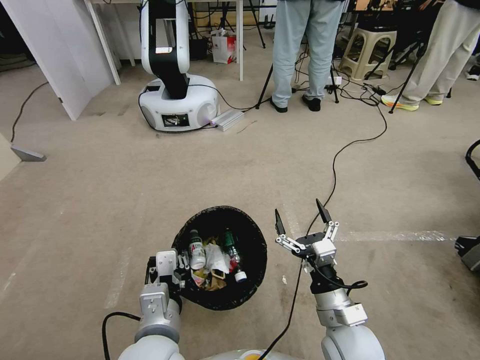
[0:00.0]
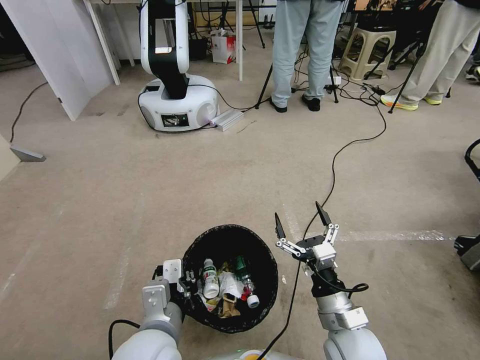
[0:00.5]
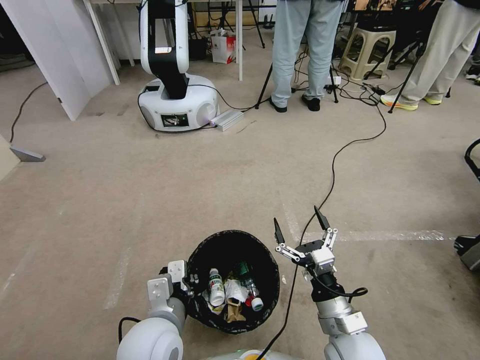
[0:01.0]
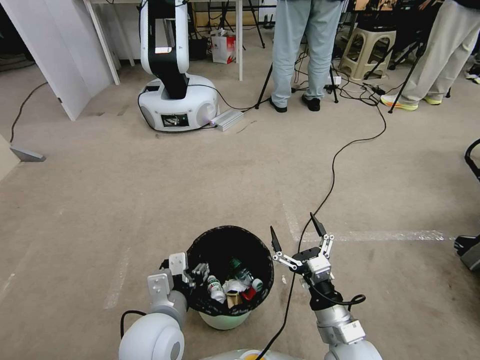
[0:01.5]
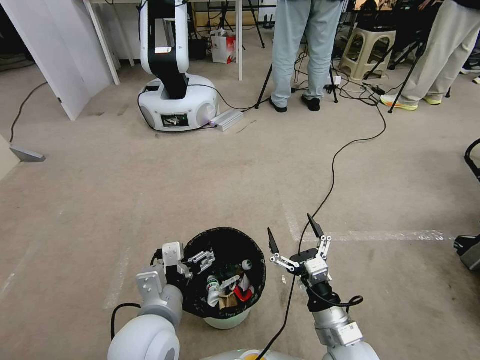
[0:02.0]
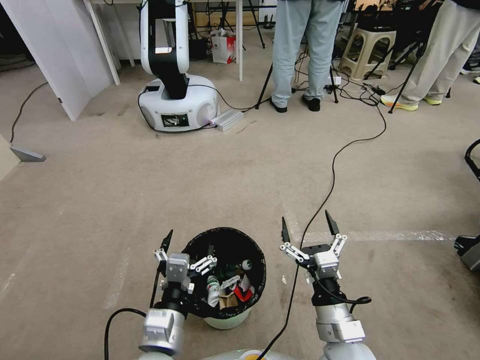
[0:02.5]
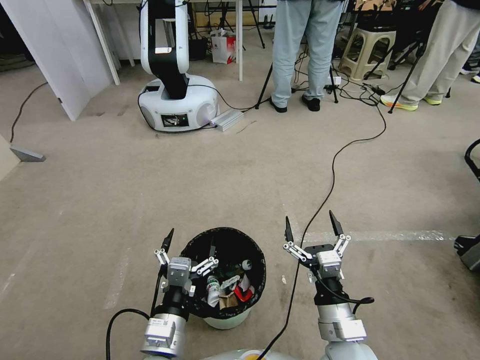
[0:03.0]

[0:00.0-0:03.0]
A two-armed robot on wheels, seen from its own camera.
Task of the whole recording: Pick up the trash bin, then pick up the garbage from the floor and place it into the trash bin.
0:00.0 to 0:01.5: The left gripper opens.
0:01.5 to 0:03.0: The left gripper moves backward, some 5 cm, and opens its fingers.

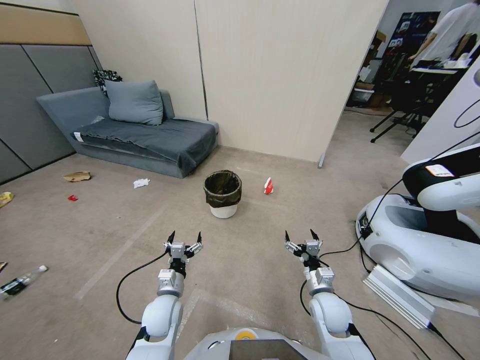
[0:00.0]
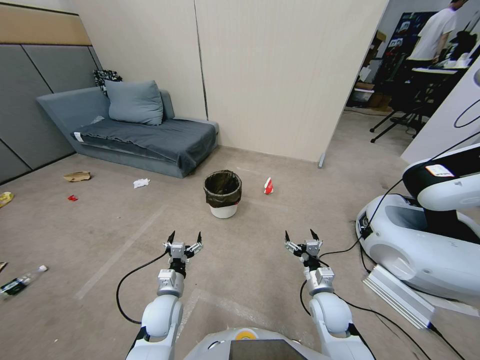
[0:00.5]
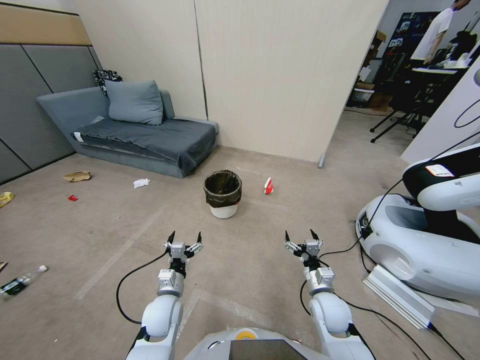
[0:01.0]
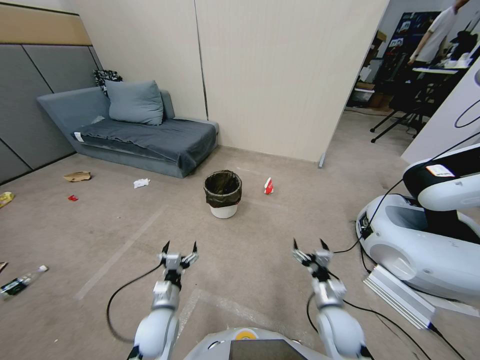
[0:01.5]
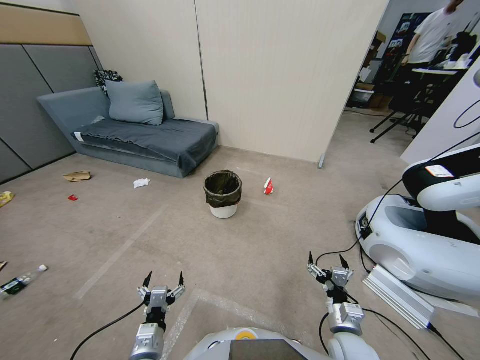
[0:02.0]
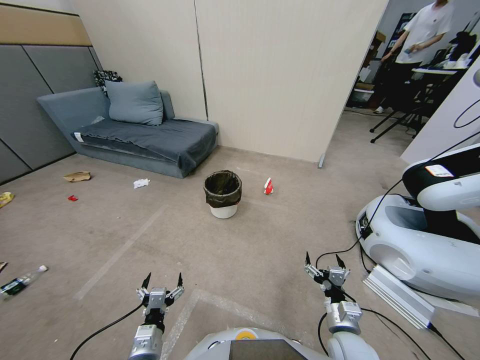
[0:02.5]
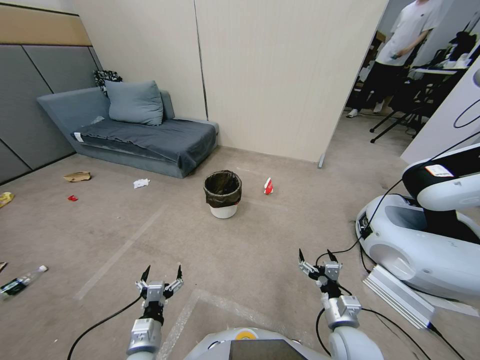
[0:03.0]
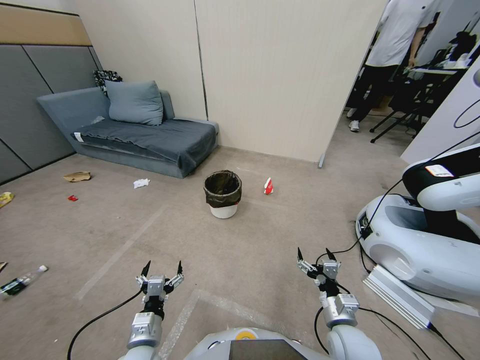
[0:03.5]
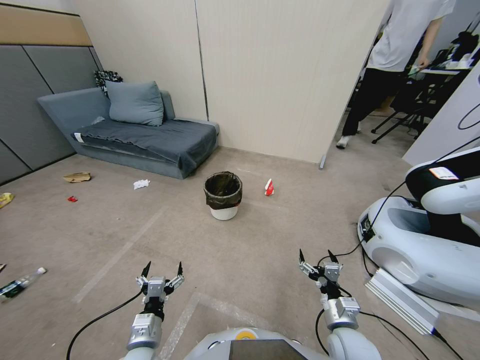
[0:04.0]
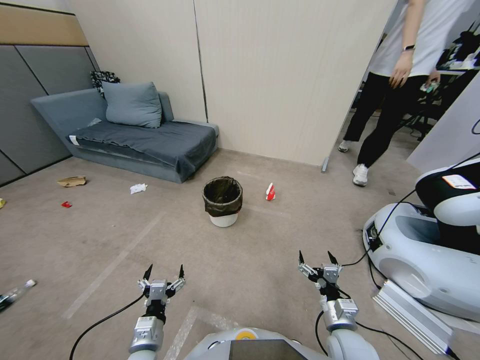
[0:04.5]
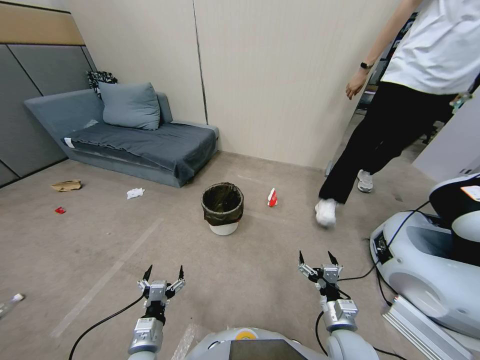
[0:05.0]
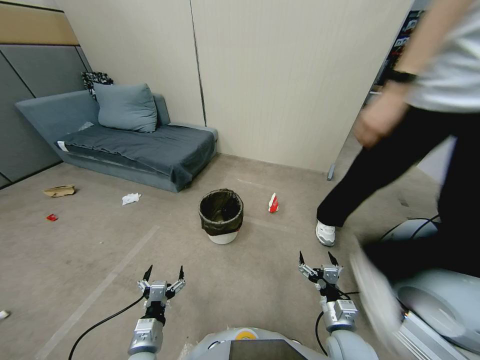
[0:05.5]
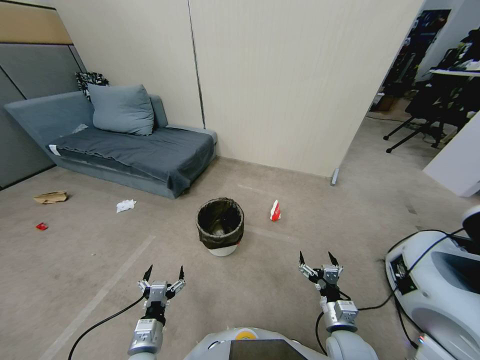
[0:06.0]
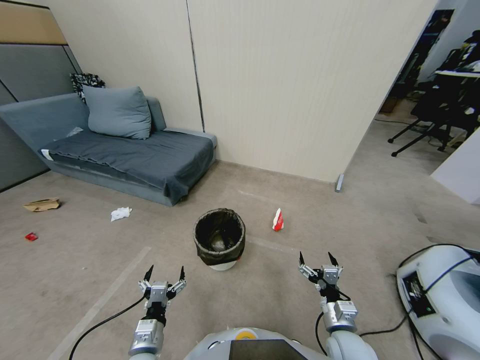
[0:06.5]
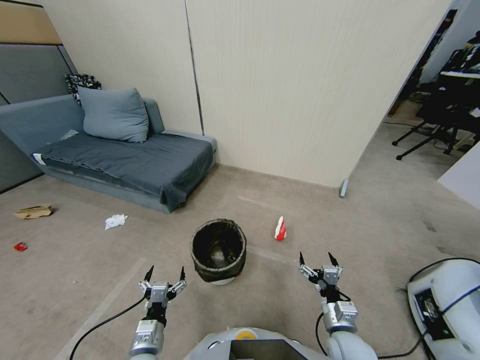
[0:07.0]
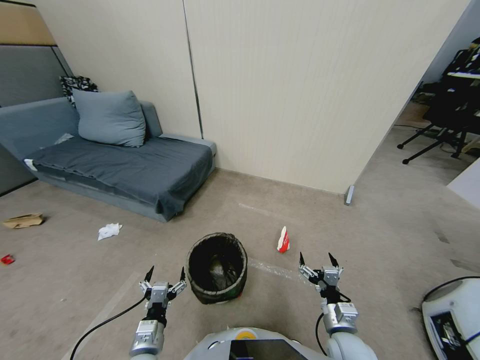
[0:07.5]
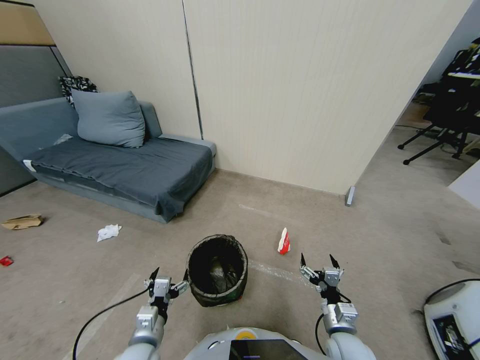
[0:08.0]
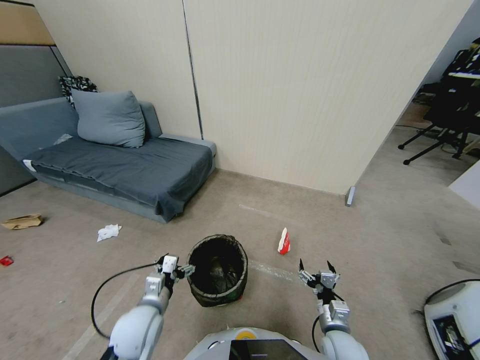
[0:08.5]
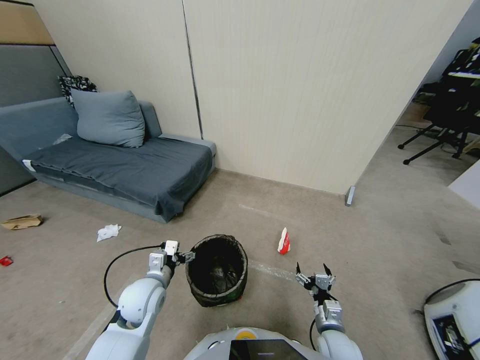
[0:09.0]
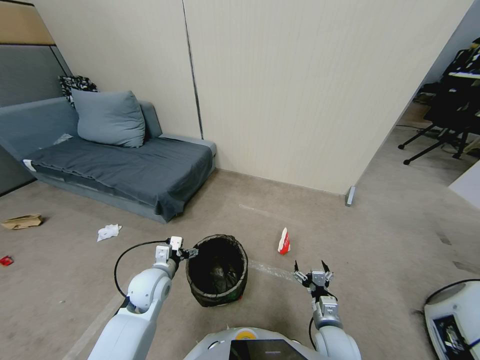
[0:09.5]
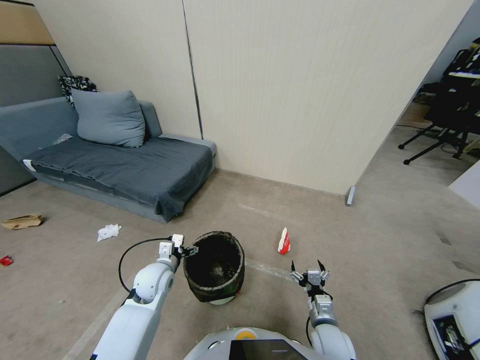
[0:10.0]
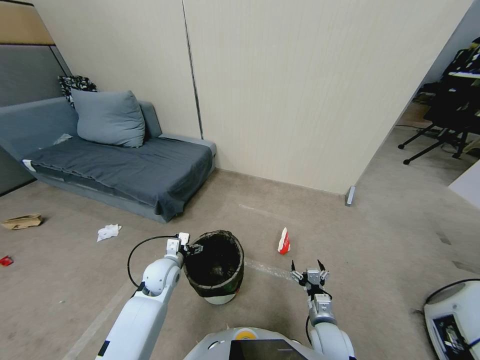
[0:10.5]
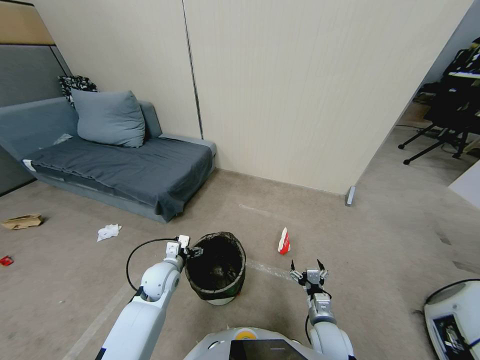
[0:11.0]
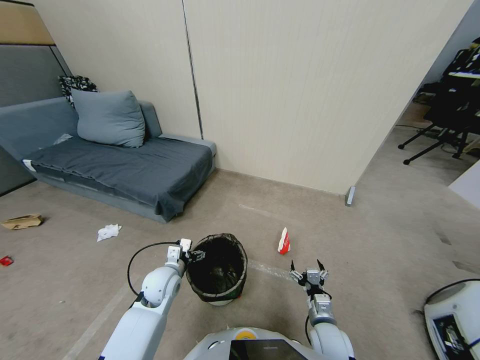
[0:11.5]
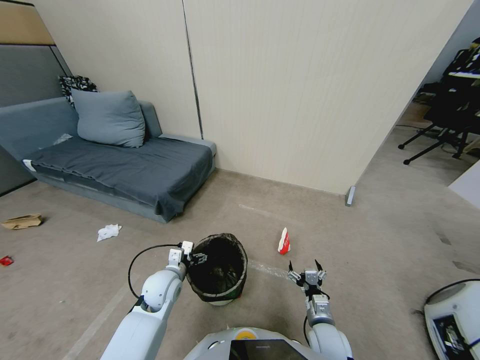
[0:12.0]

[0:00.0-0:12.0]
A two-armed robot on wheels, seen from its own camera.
Task of the whole recording: Pick up the trash bin, then pick up the garbage from the floor and place it into the trash bin.
0:02.0 to 0:04.0: The grippers stay close to where they were, moving slightly.
0:08.0 to 0:10.0: The left gripper is displaced forward by approximately 15 cm.
0:10.0 to 0:12.0: The grippers stay close to where they were, moving slightly.

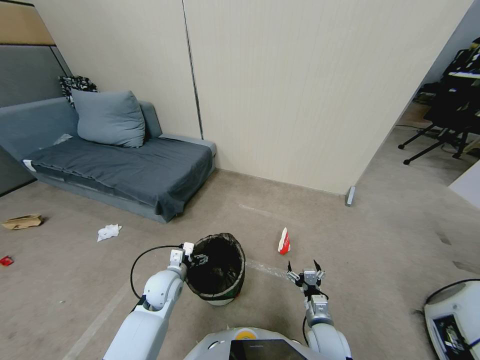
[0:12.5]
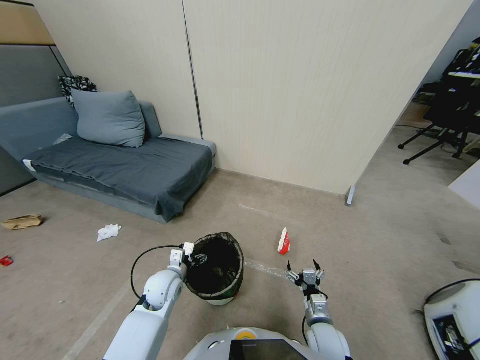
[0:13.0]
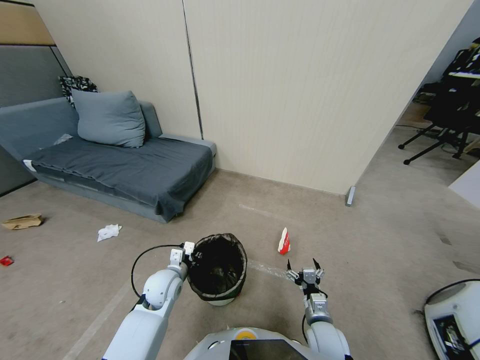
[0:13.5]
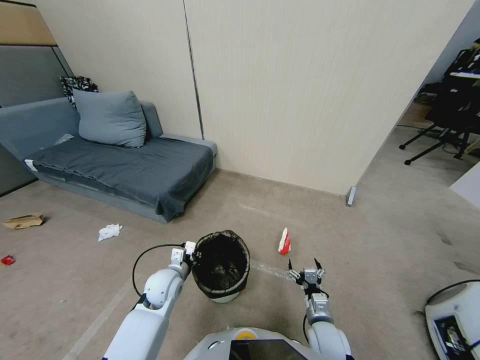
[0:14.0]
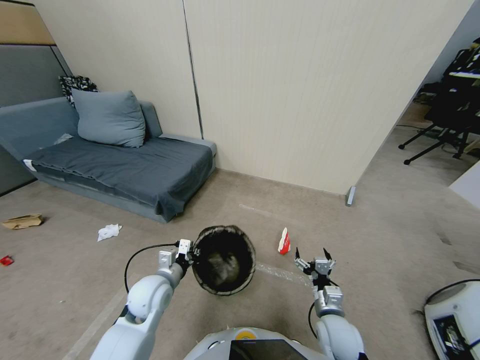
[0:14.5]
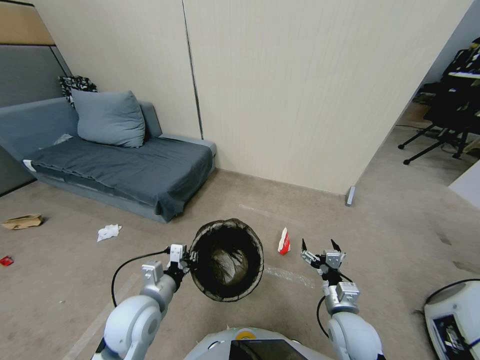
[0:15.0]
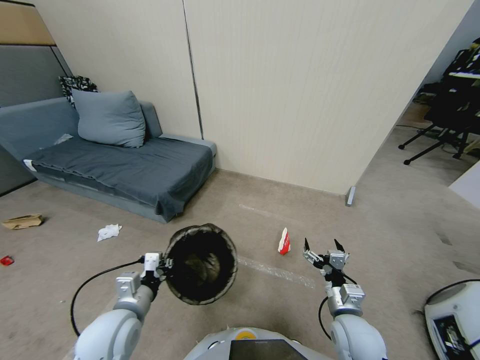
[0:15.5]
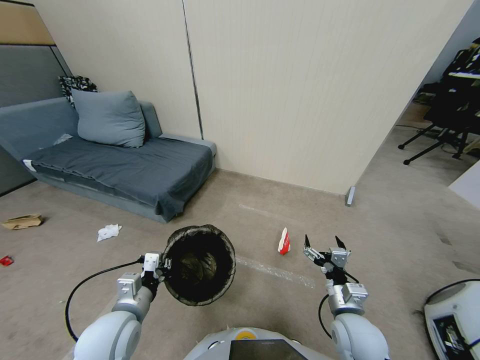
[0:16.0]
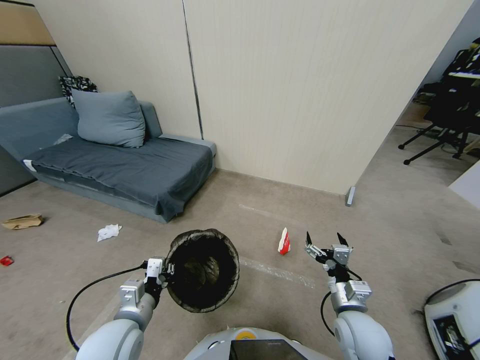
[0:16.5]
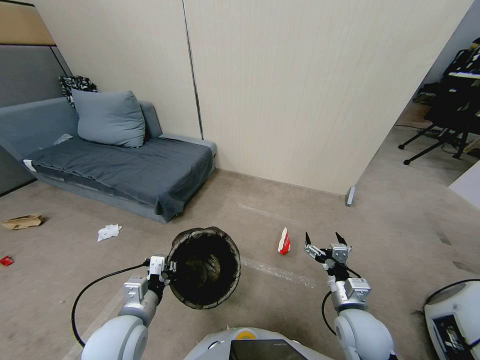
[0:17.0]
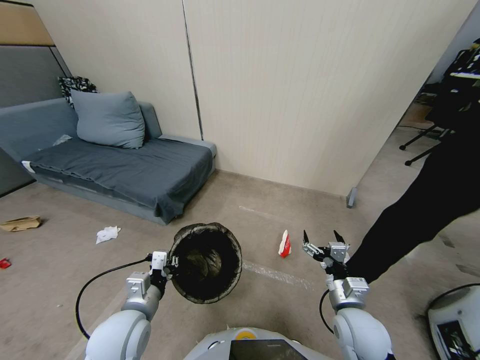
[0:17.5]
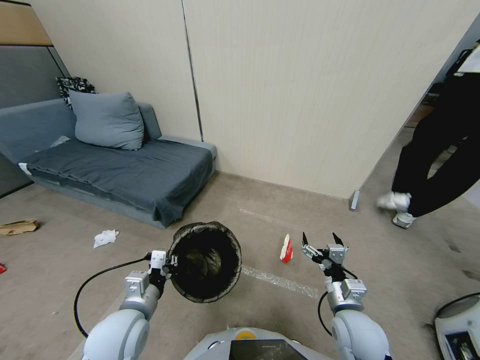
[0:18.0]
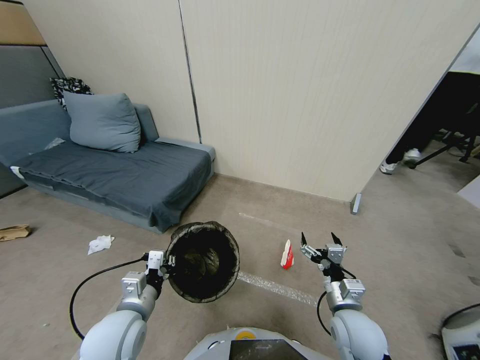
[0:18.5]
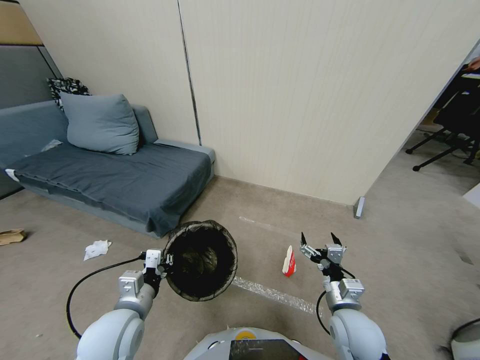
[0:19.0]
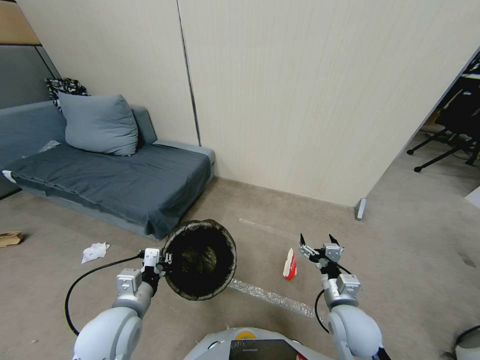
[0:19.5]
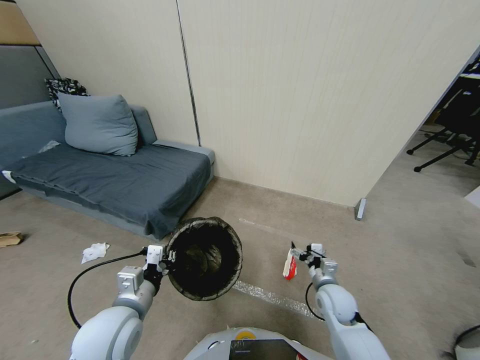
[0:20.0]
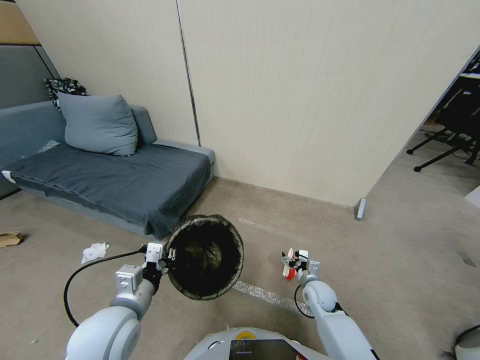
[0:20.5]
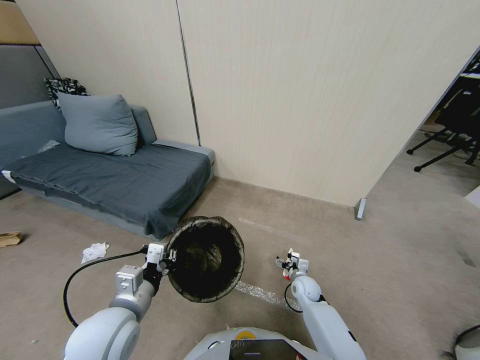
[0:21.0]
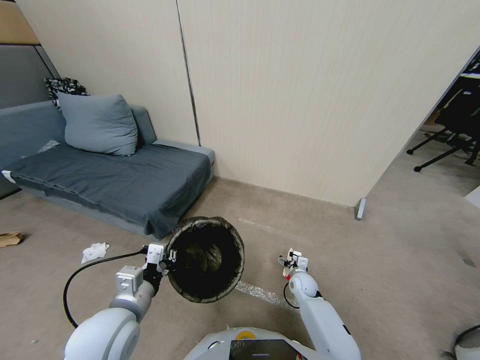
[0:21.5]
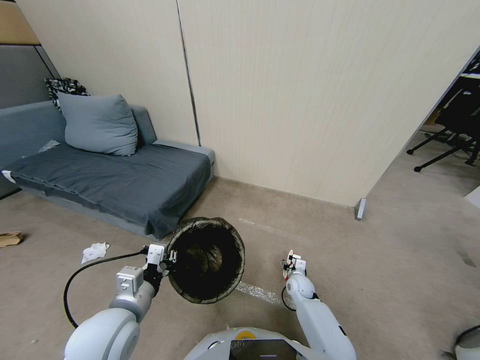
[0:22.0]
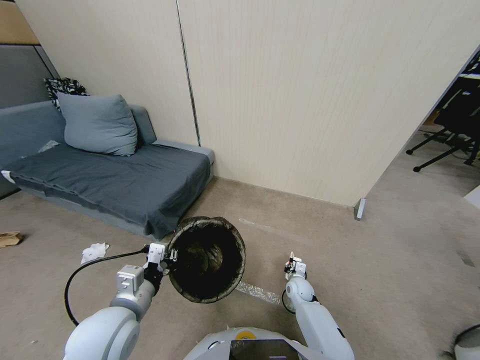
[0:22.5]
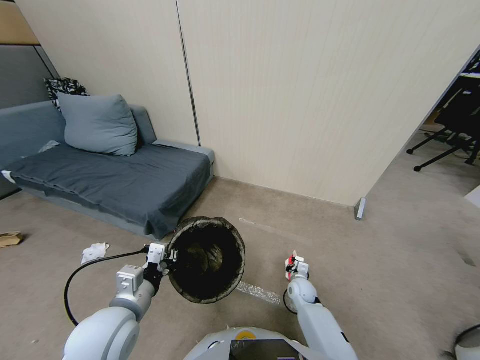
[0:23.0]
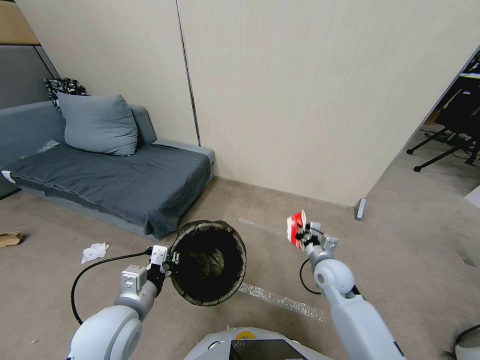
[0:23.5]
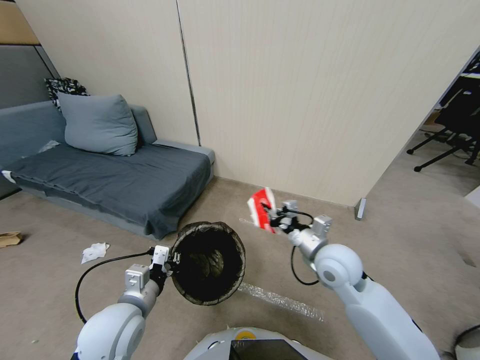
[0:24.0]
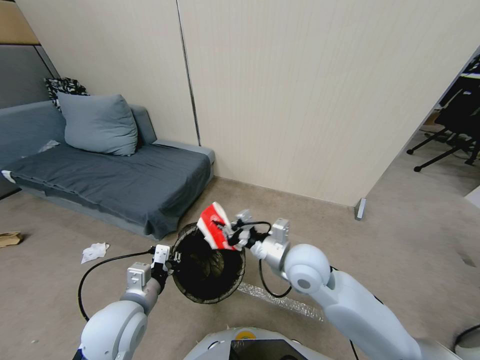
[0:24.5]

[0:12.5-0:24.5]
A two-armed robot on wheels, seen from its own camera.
Task of the whole recording: Pick up the trash bin, then pick up the garbage from the floor and place it into the trash bin.
0:12.5 to 0:14.5: Both grippers move upward, approximately 5 cm. The left gripper closes up.
0:14.5 to 0:16.5: The right gripper moves upward, some 5 cm. Meanwhile the left gripper moves backward, some 10 cm.
0:16.5 to 0:18.5: There are only small adjustments of the grippers.
0:18.5 to 0:20.5: The right gripper moves downward and forward, roughly 20 cm.
0:20.5 to 0:22.5: The right gripper shifts about 5 cm downward, and closes.
0:22.5 to 0:24.5: The right gripper shifts roughly 35 cm upward.
